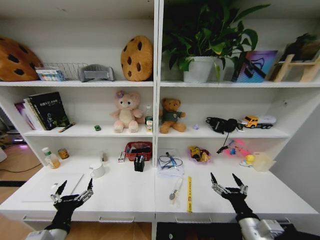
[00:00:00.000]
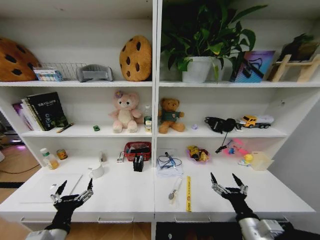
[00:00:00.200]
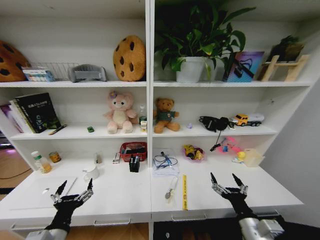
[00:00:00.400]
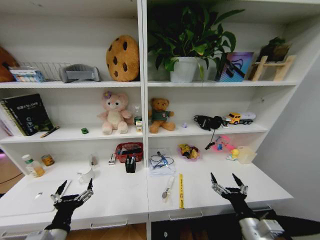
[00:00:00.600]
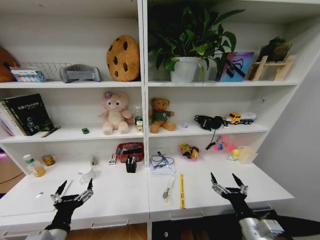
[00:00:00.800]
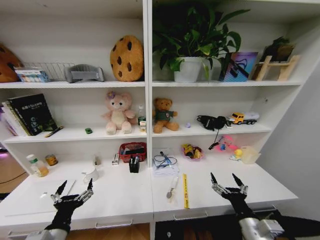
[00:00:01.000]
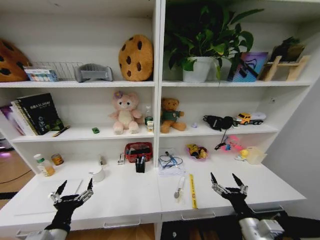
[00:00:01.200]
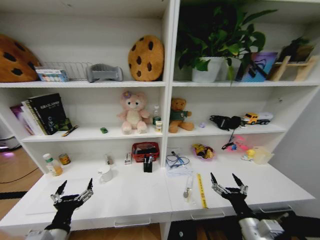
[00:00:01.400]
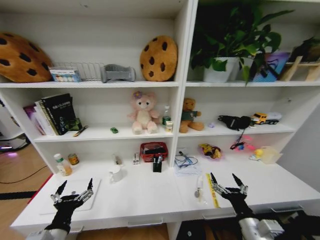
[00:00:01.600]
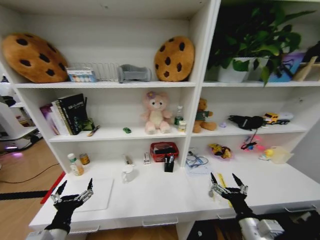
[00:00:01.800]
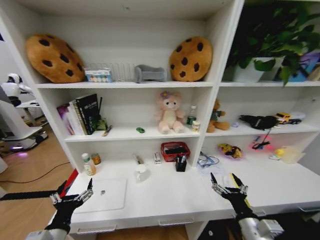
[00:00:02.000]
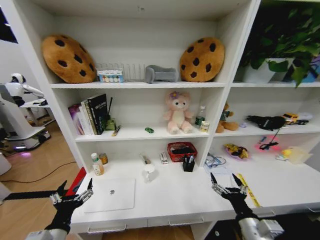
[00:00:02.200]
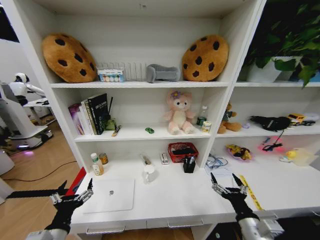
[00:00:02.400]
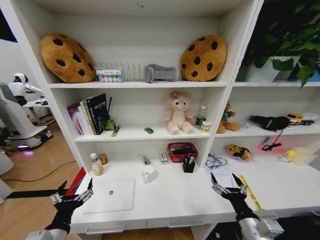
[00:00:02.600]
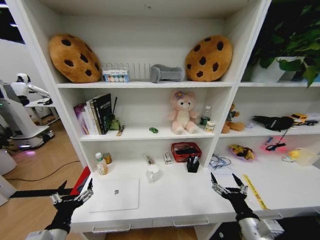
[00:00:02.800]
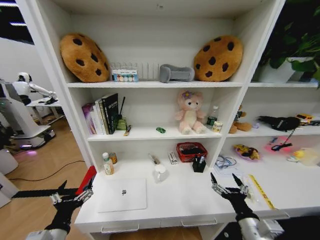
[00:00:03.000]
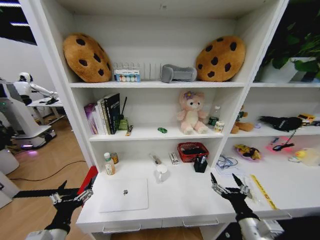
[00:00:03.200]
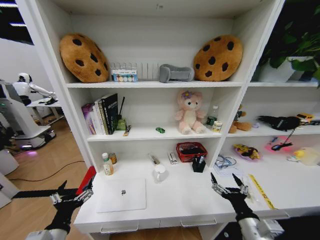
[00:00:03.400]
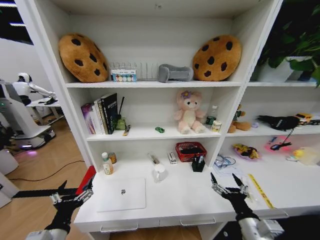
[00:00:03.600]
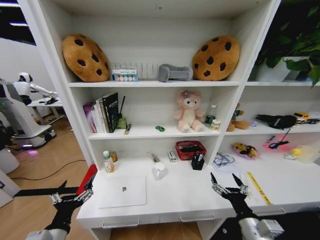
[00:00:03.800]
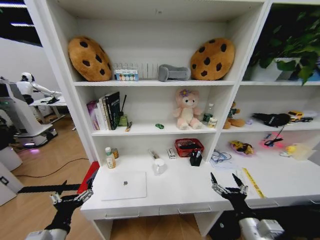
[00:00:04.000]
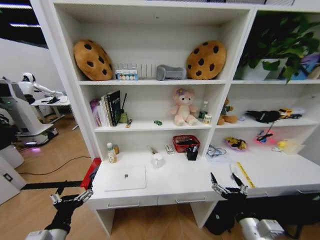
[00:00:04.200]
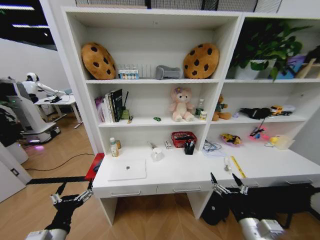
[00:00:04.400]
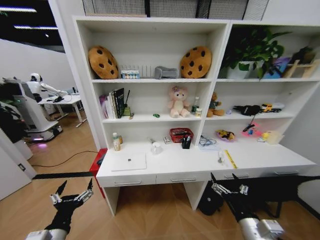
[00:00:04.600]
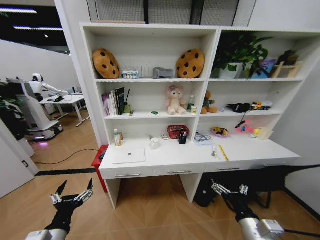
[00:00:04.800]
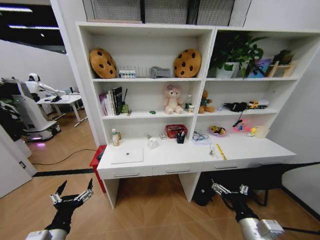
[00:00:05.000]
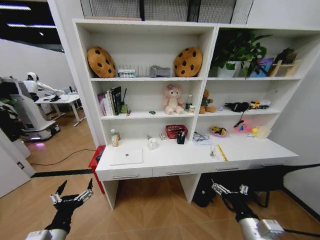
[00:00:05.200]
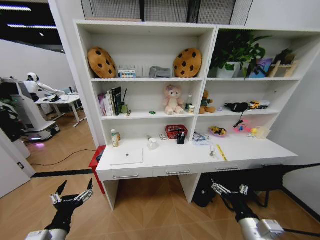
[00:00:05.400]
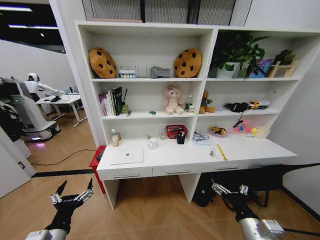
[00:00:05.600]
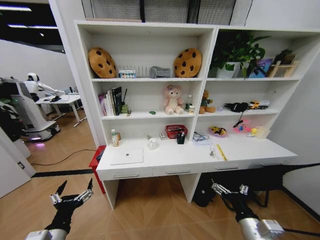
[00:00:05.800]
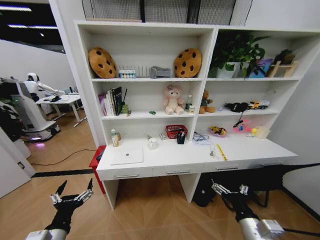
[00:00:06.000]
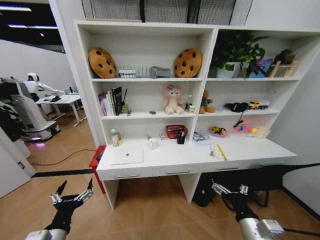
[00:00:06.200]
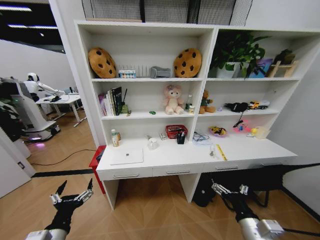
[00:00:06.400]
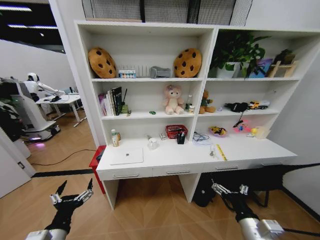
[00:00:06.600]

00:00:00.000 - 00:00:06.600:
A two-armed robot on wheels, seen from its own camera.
Task of the whole recording: Organize the objects on the table.
00:00:05.000 - 00:00:06.600: Both grippers stay about where they are.
